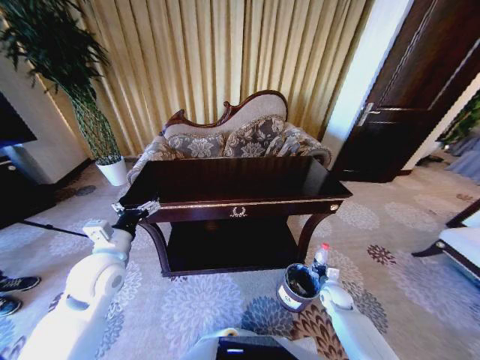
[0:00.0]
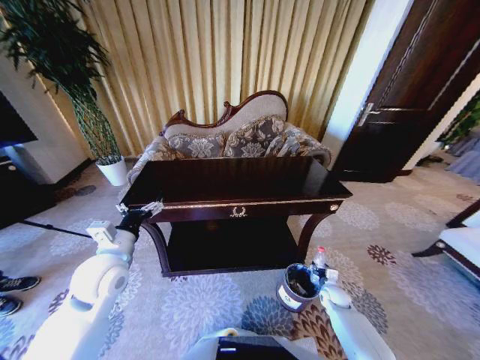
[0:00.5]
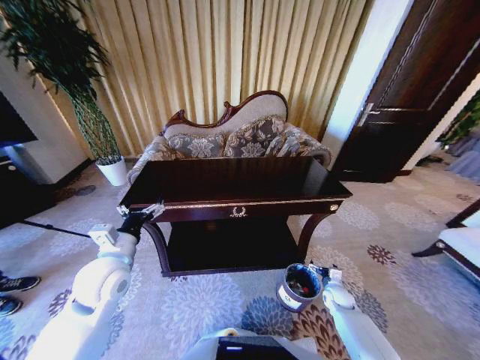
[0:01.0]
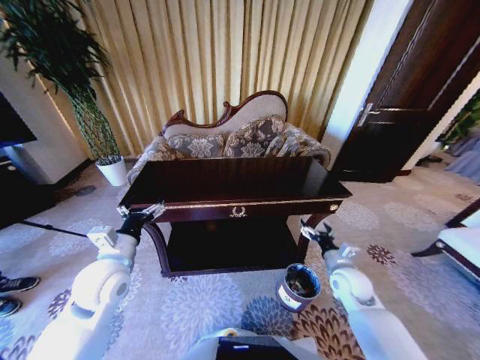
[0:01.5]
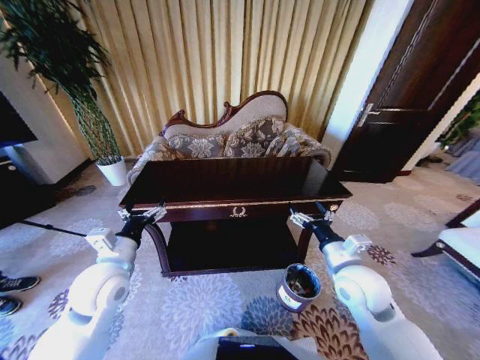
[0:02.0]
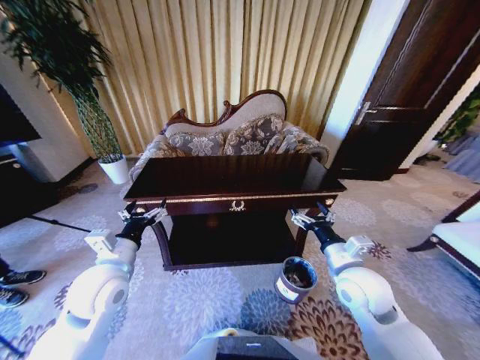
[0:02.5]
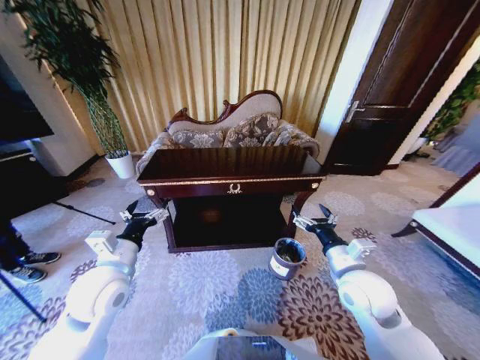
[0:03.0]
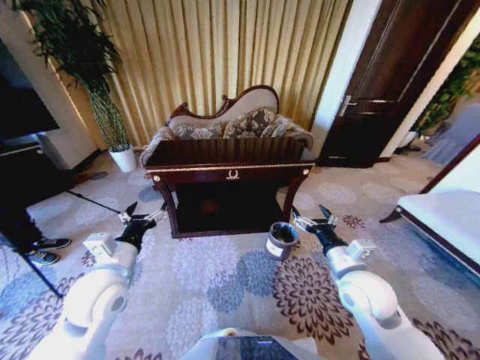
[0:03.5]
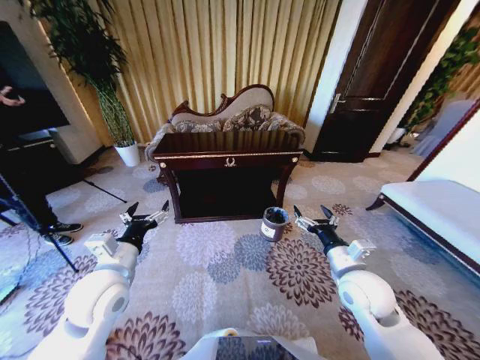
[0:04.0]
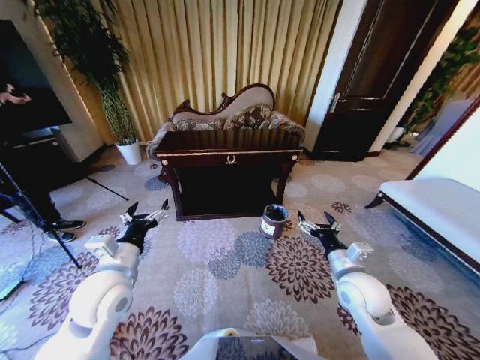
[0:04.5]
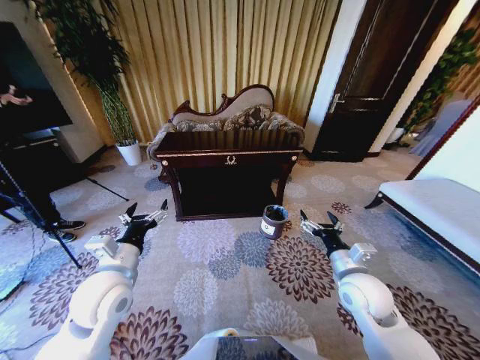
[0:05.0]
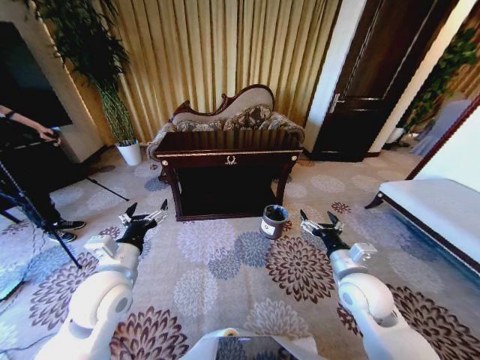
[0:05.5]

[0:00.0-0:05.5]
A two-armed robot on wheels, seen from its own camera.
Task of the whole recording: Move to the front of the table and place the trash on the table into the trash bin.
0:00.0 to 0:02.0: The right gripper is displaced upward by roughly 30 cm, and opens up.

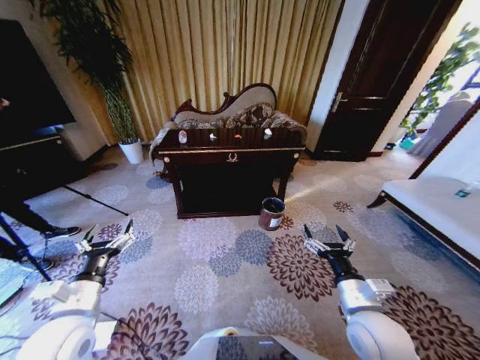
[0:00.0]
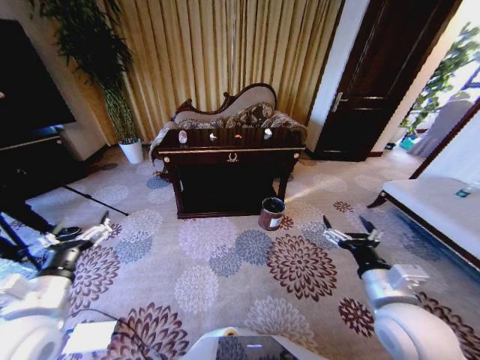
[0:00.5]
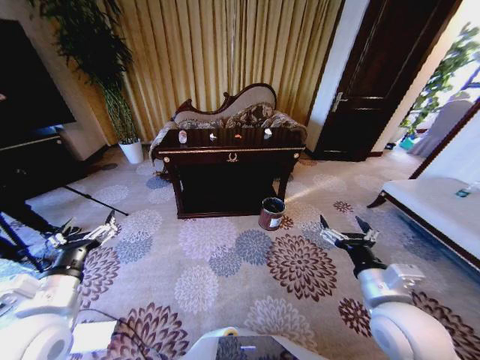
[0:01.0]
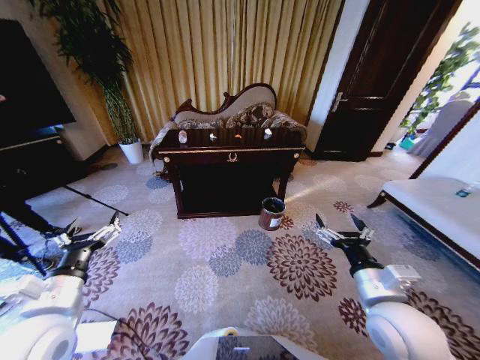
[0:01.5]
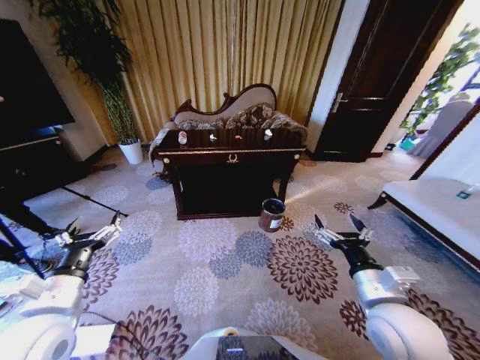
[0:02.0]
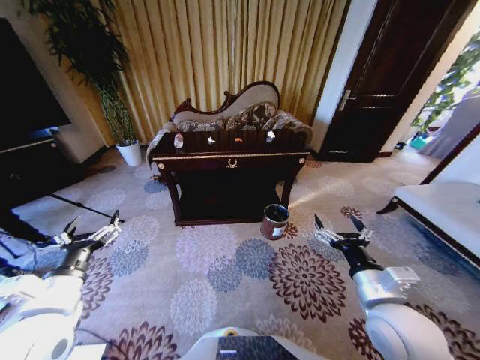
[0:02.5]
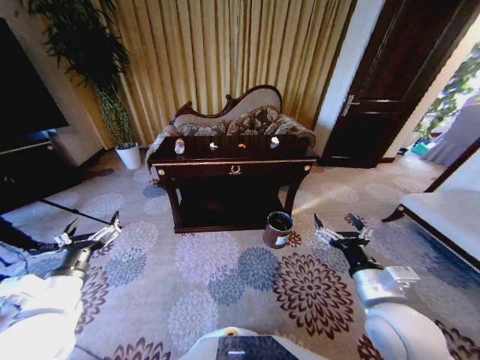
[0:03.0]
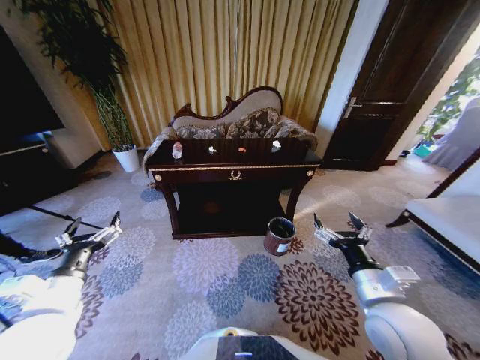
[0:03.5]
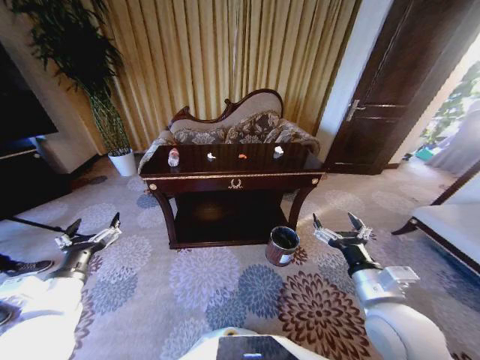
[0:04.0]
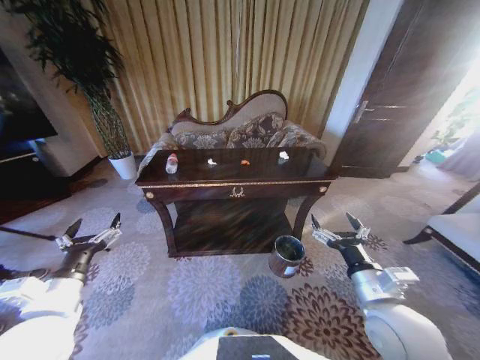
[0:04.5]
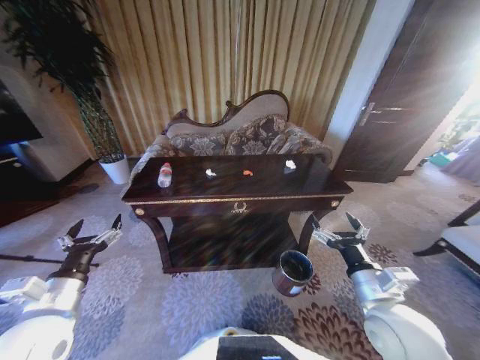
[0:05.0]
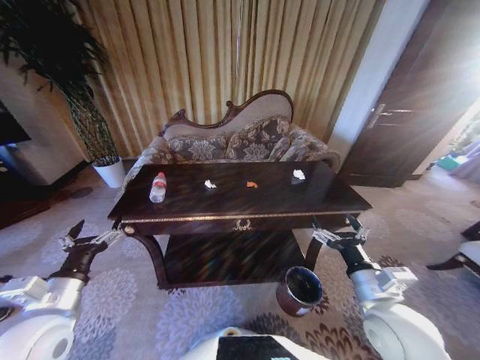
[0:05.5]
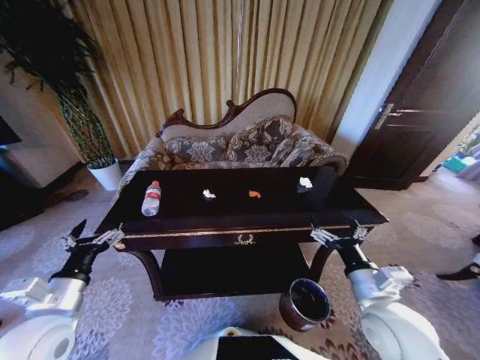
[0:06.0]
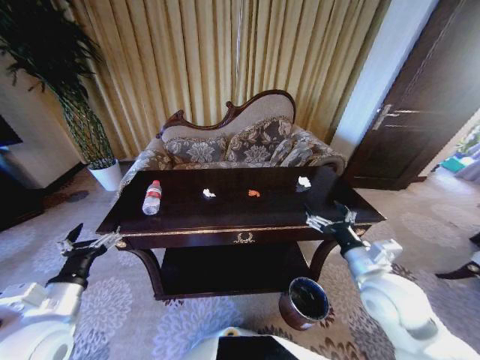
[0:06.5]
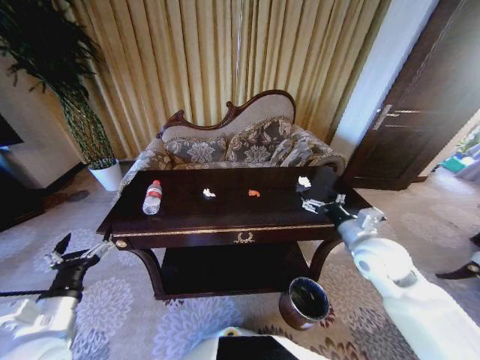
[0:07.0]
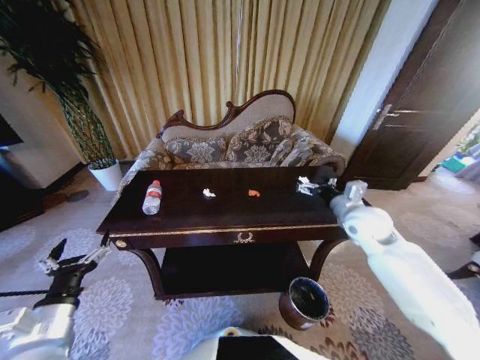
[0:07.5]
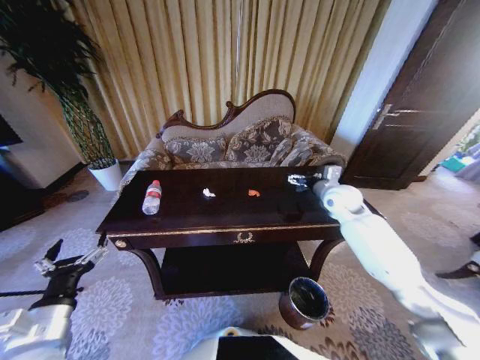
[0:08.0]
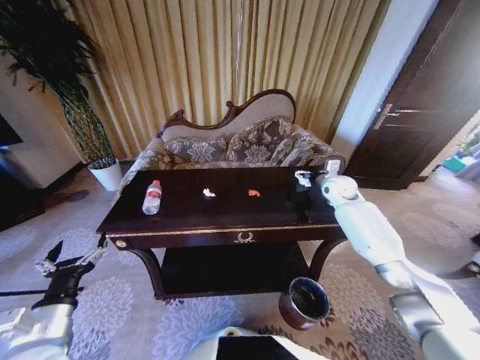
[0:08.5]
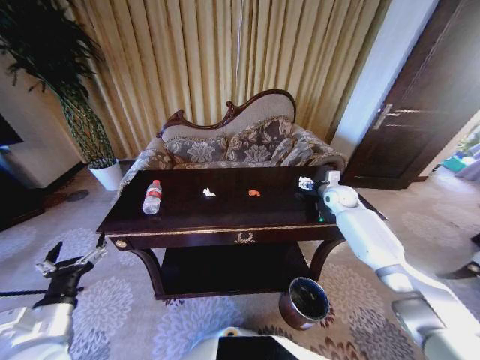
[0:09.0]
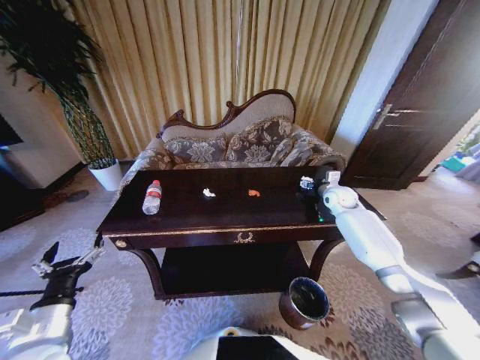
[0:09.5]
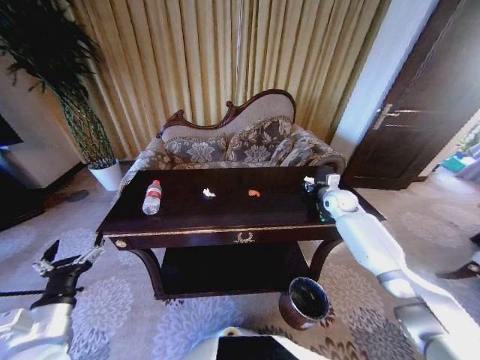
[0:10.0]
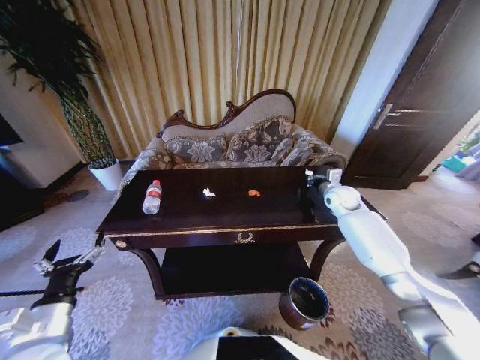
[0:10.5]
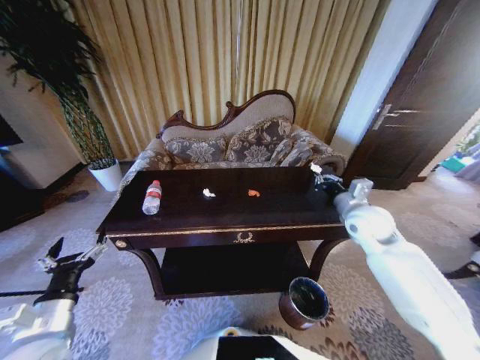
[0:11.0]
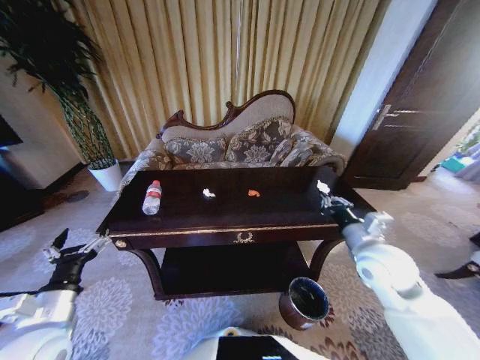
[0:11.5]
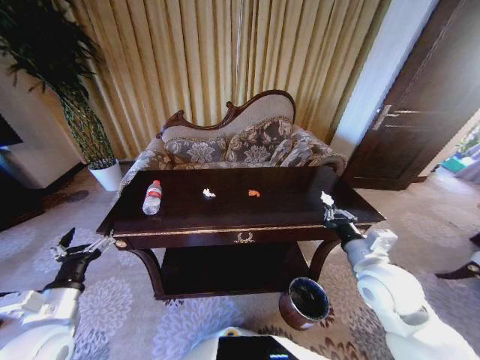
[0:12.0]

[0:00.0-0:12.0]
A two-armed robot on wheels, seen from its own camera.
Task of the whole recording: Move to the front of the table and place the trash on the table into the trash bin.
0:06.0 to 0:08.0: The right gripper shifts about 30 cm forward.
0:08.0 to 0:10.0: The right gripper shifts approximately 10 cm downward, to the right and forward, and closes its fingers.
0:10.0 to 0:12.0: The right gripper travels backward by roughly 30 cm, and closes.

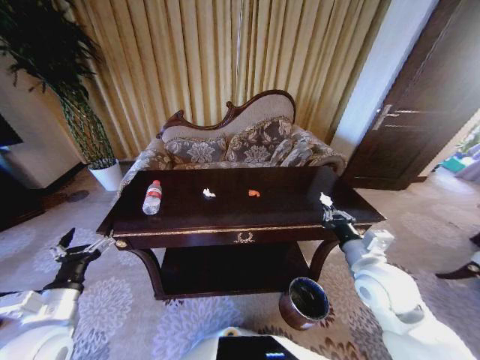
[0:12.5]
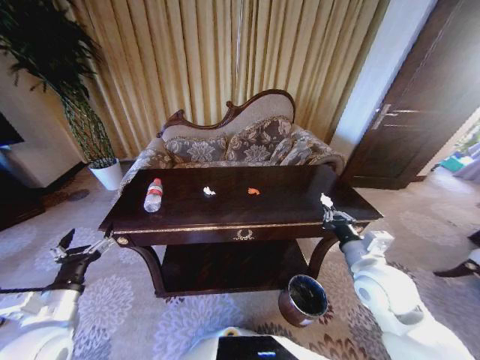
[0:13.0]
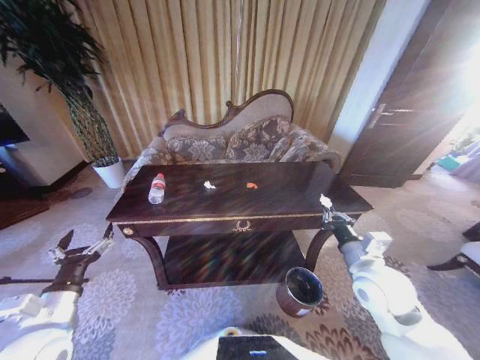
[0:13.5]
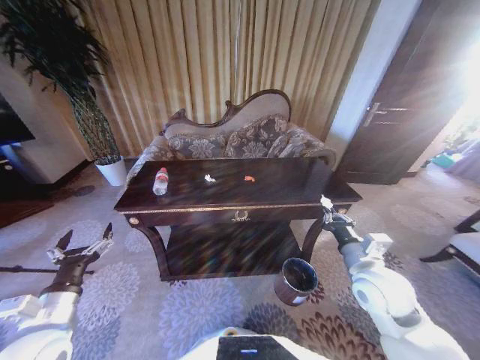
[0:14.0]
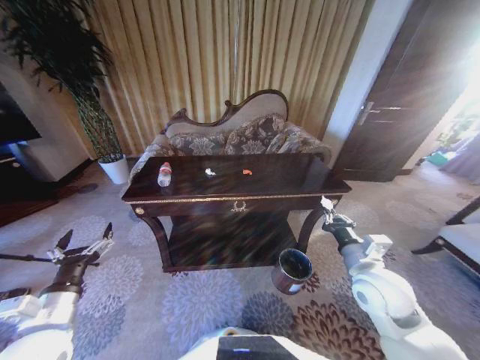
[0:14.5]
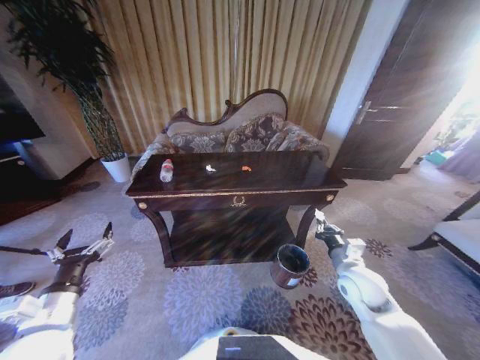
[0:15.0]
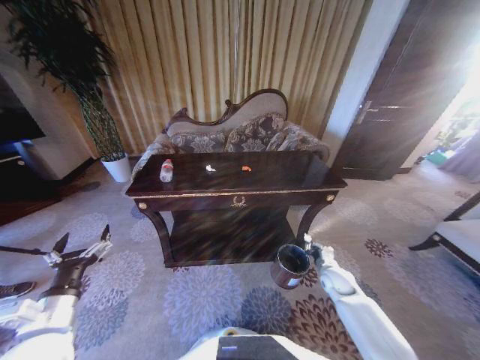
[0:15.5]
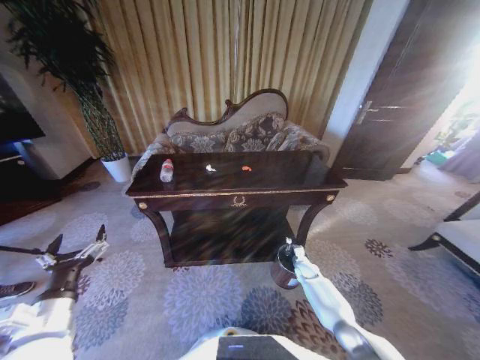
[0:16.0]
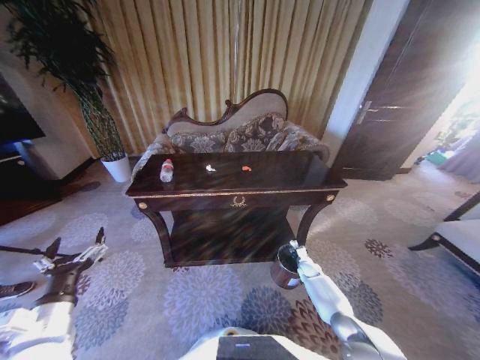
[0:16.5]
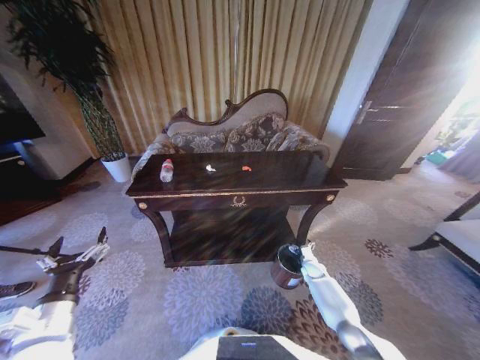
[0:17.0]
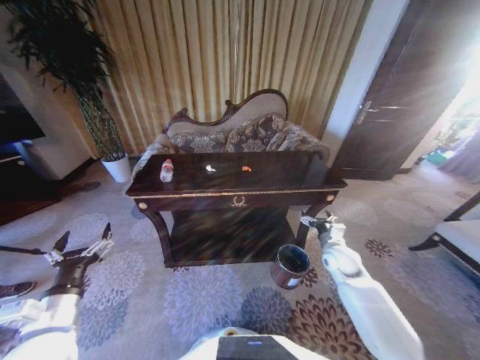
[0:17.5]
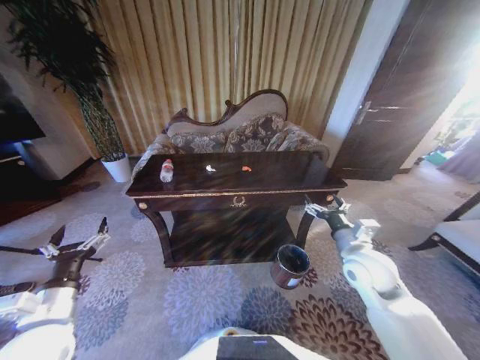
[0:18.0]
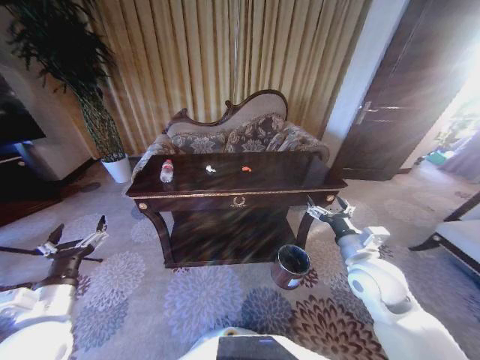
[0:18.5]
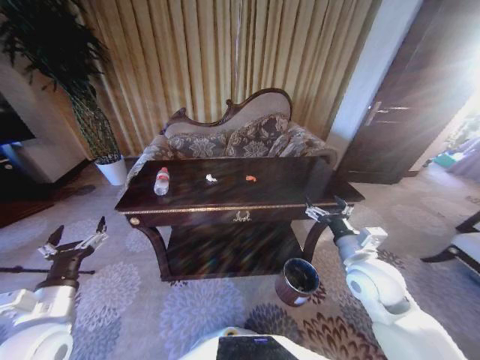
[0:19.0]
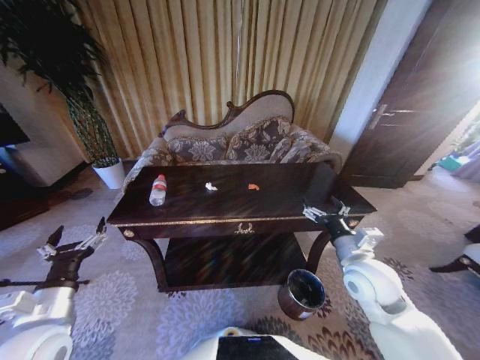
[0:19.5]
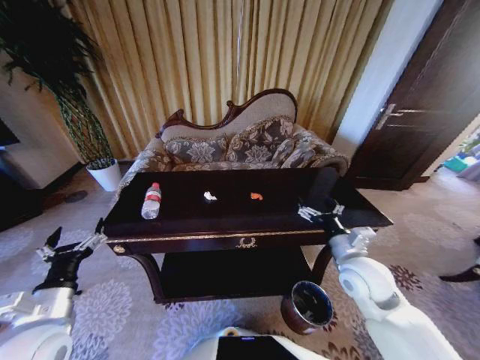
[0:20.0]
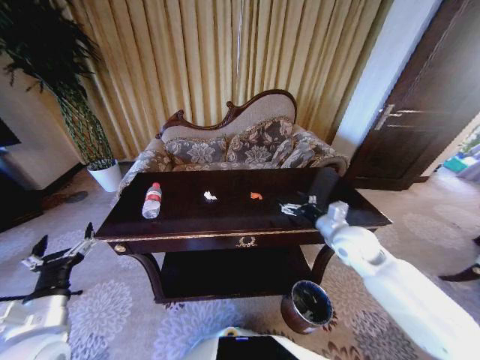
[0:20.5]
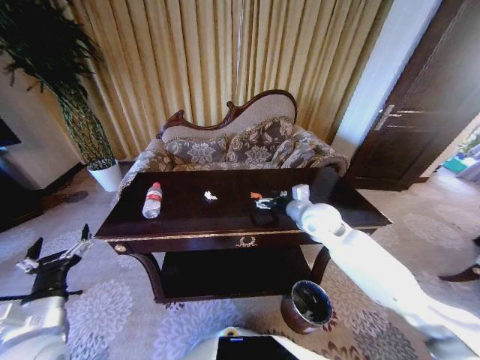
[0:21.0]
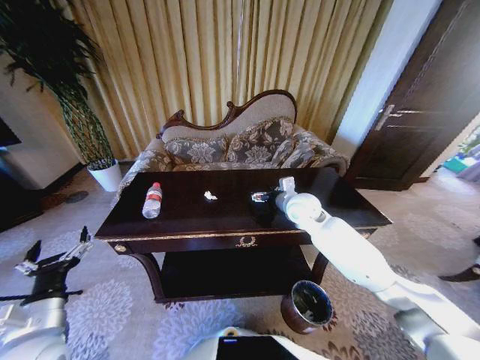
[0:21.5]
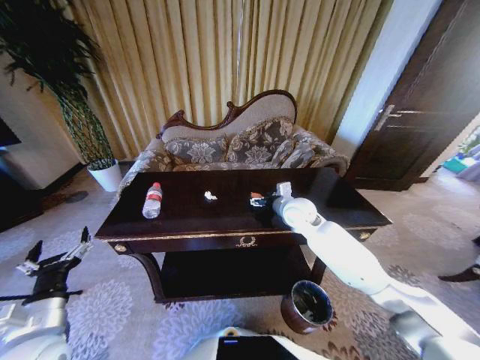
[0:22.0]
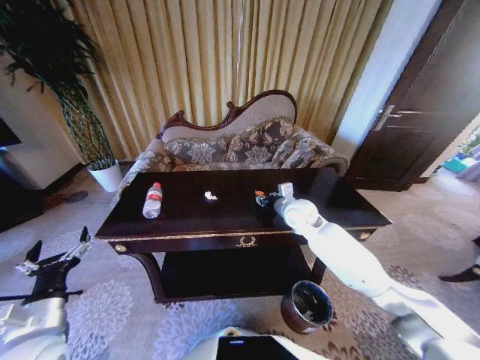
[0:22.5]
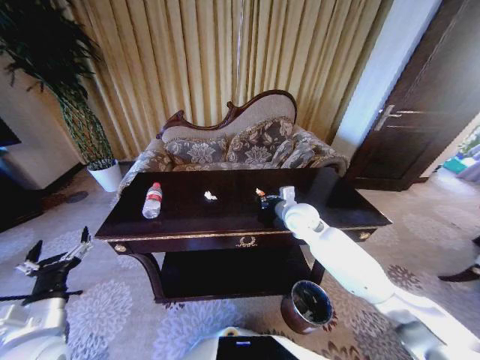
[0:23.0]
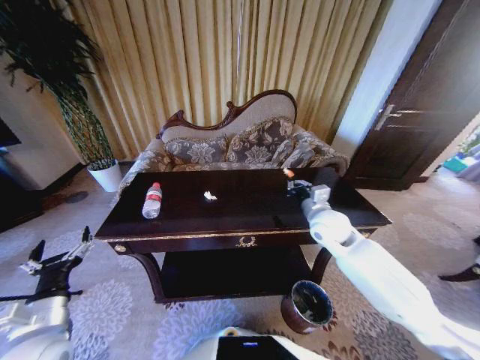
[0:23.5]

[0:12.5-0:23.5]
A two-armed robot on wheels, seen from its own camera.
Task of the whole recording: Move to the front of the table and place the trash on the table into the trash bin.
0:14.5 to 0:16.0: The right gripper shifts approximately 40 cm downward and forward.
0:16.0 to 0:18.0: The right gripper travels upward by about 35 cm, and opens its fingers.
0:20.0 to 0:21.5: The right gripper moves forward and to the left, roughly 20 cm.
0:21.5 to 0:23.5: The right gripper heads backward and to the right, covering approximately 10 cm, and closes its fingers.
